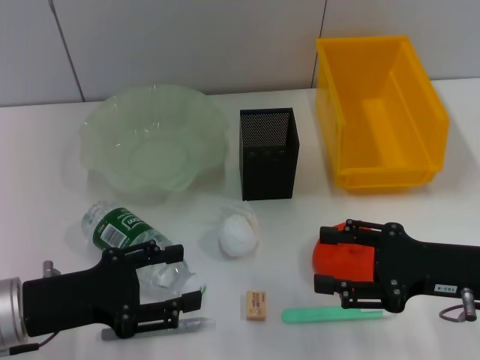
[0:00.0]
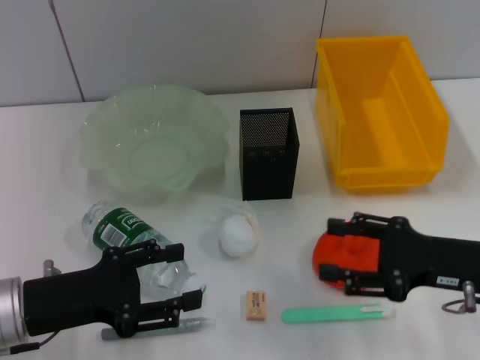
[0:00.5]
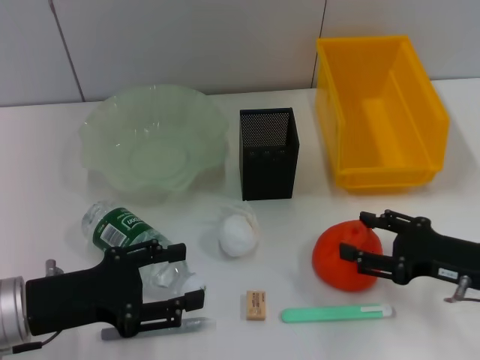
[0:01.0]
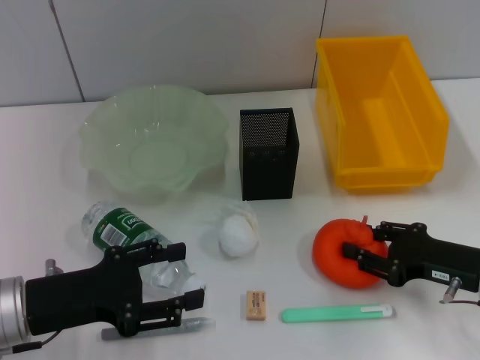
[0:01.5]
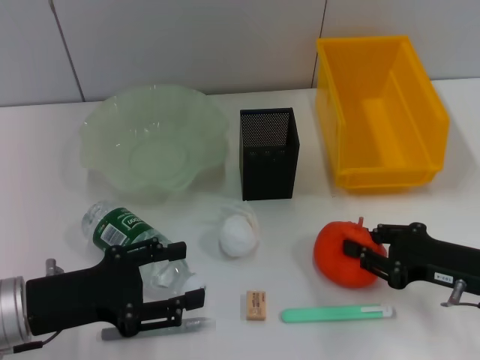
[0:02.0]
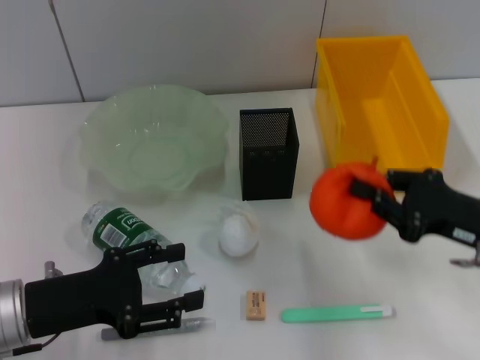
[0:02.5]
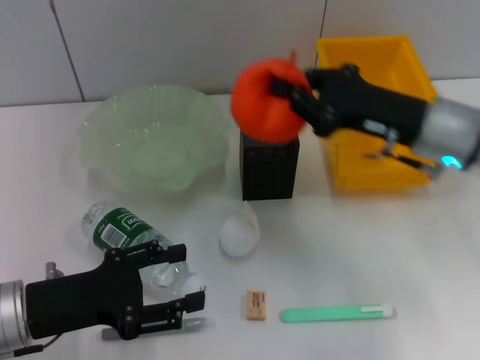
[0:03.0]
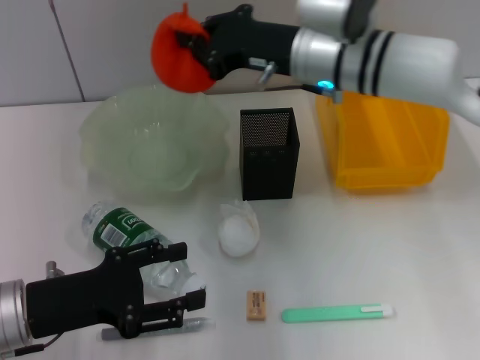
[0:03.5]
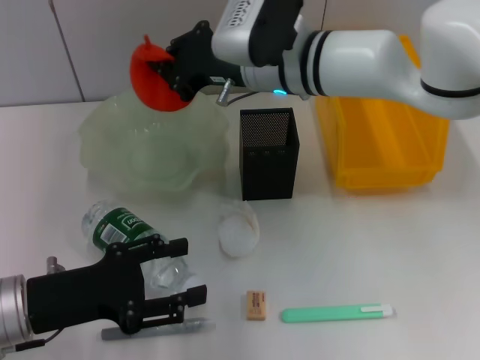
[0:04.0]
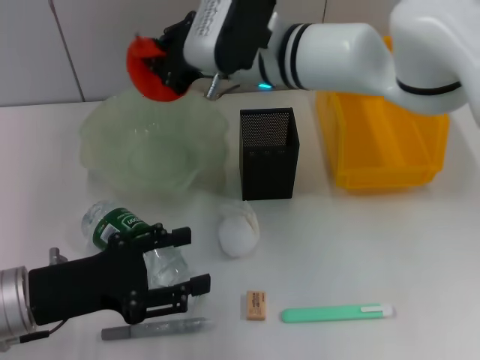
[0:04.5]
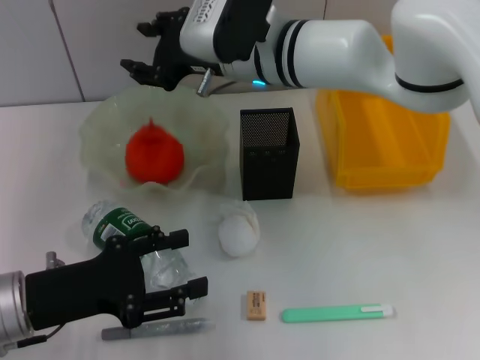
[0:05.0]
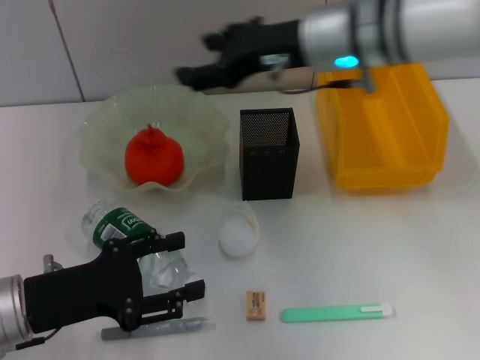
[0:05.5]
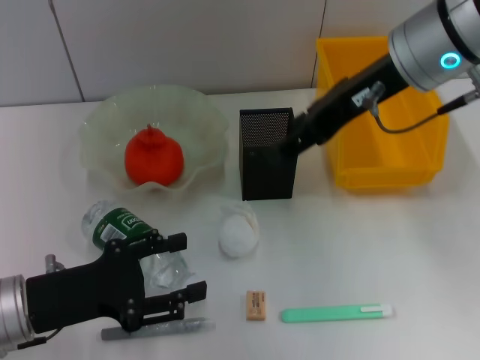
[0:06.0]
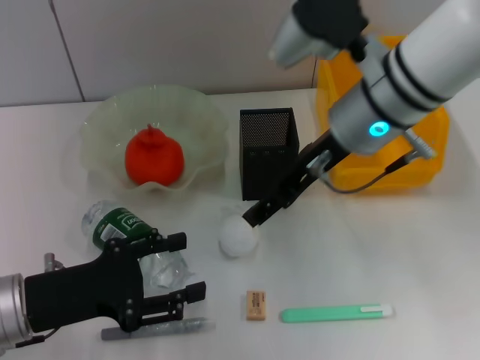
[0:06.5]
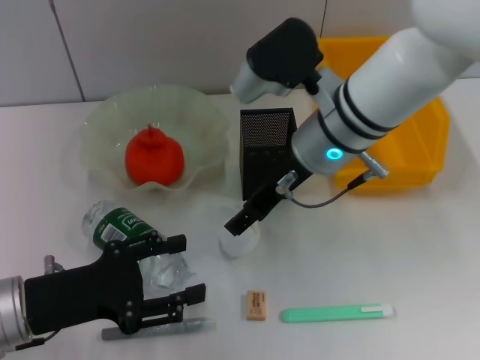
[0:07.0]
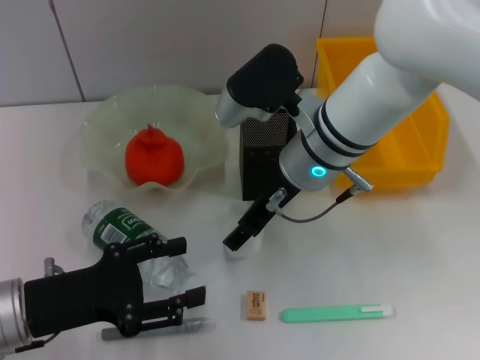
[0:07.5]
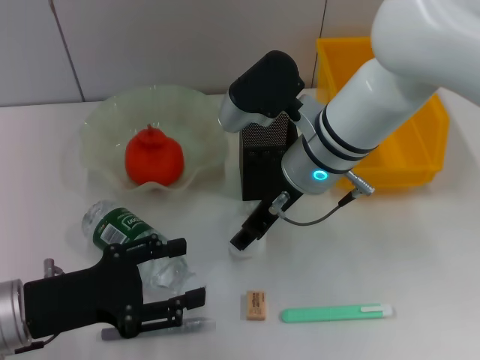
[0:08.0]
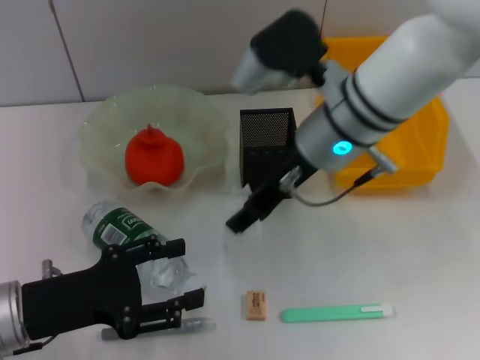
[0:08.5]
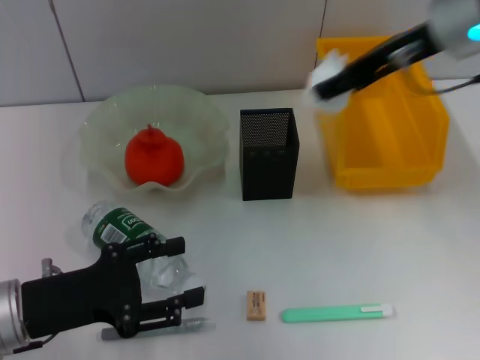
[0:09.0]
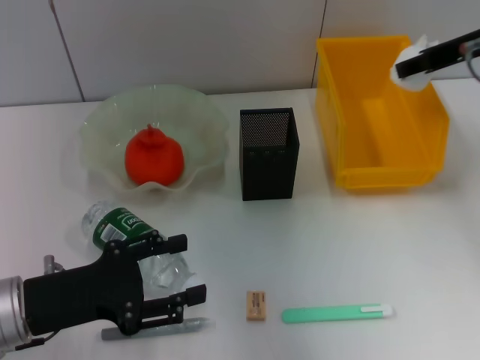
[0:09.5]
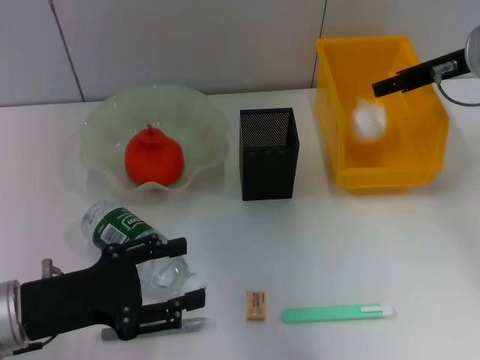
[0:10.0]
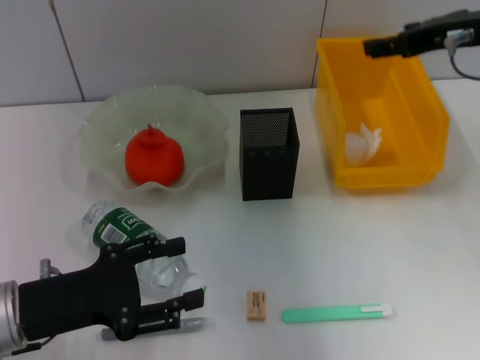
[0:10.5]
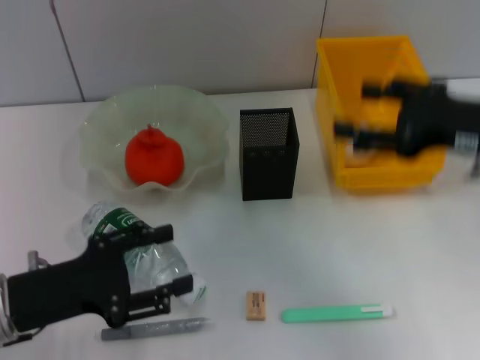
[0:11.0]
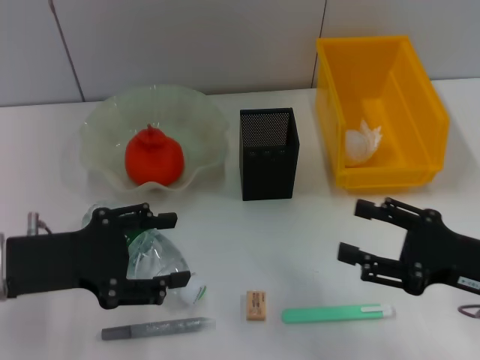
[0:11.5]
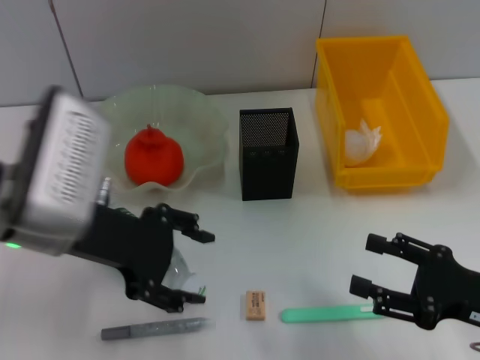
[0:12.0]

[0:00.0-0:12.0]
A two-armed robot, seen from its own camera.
Step, 0:00.0 to 0:01.5: Grab the orange with the right hand.
Step, 0:02.0 to 0:05.0: Place the orange into the fruit bowl with the right hand.
Step, 0:06.0 to 0:08.0: Grab the paper ball with the right hand.
Step, 0:08.5 to 0:10.0: Place the paper ball into the trash can with the right hand.
0:00.0 to 0:02.0: The right gripper closes.
0:02.0 to 0:04.0: The right gripper heads to the left, forward and upward, covering about 30 cm.
0:04.0 to 0:06.0: The right gripper travels to the right, upward and backward by approximately 15 cm, and opens its fingers.
0:06.0 to 0:08.0: The right gripper shifts about 15 cm downward and to the left.
0:08.0 to 0:10.0: The right gripper goes about 20 cm to the right.
0:10.0 to 0:12.0: The right gripper travels backward and downward by some 25 cm, while the left gripper goes approximately 15 cm upward, to the right and forward.

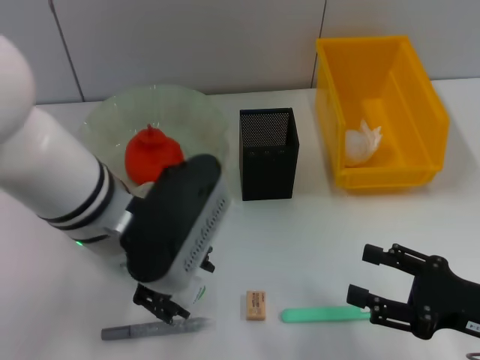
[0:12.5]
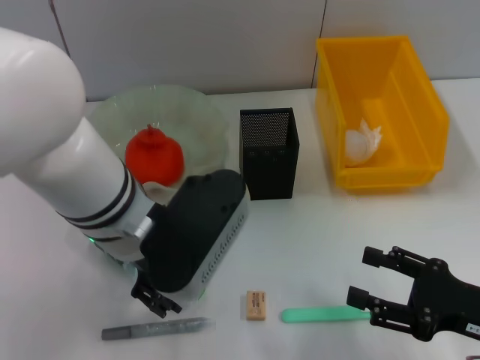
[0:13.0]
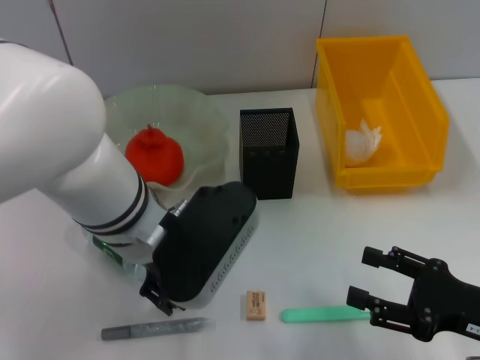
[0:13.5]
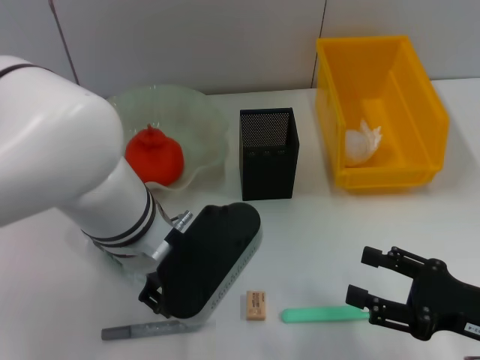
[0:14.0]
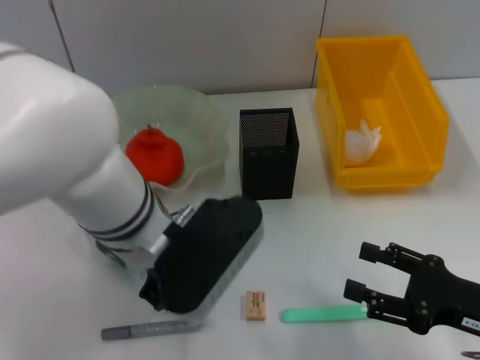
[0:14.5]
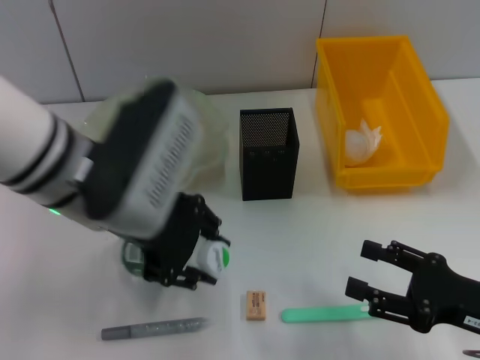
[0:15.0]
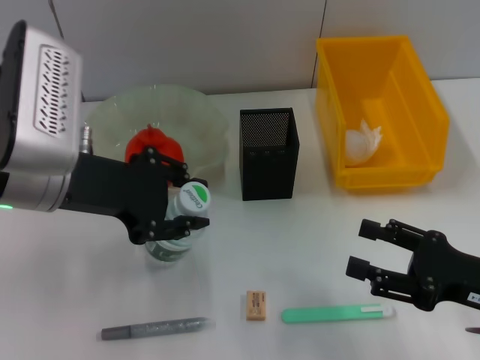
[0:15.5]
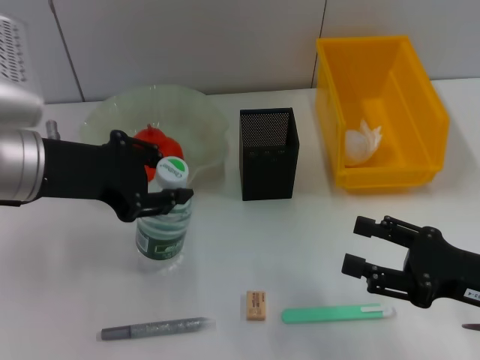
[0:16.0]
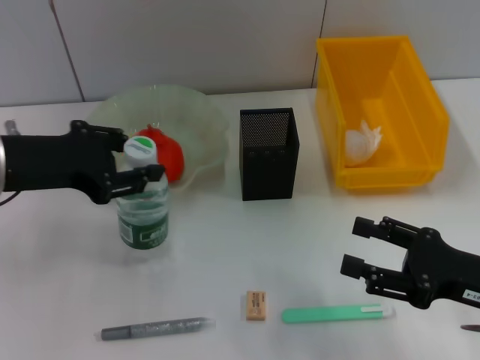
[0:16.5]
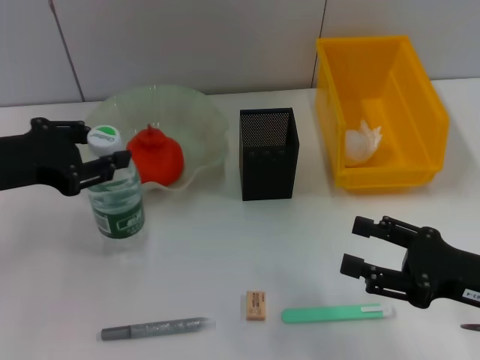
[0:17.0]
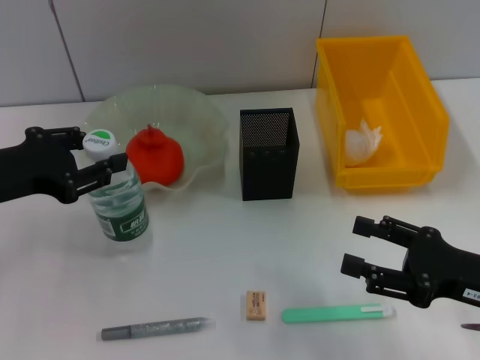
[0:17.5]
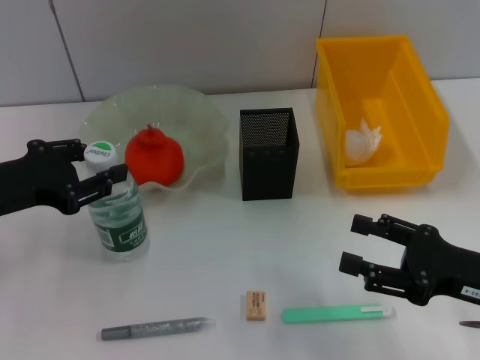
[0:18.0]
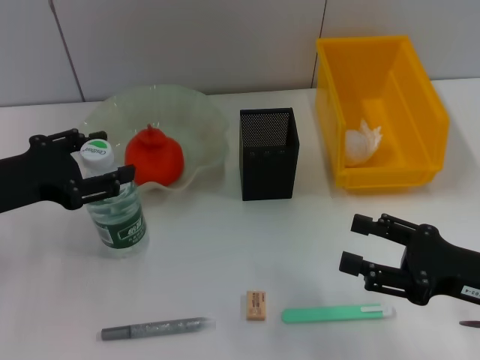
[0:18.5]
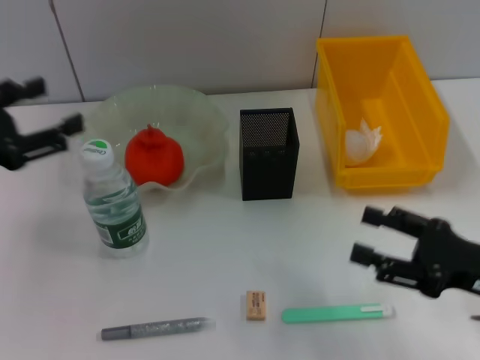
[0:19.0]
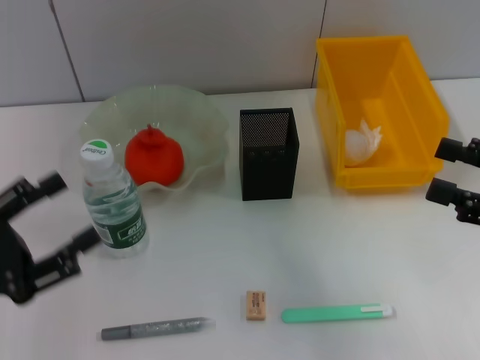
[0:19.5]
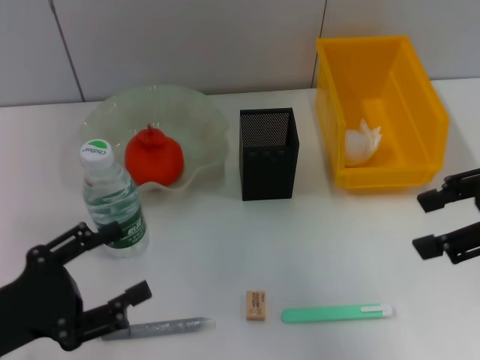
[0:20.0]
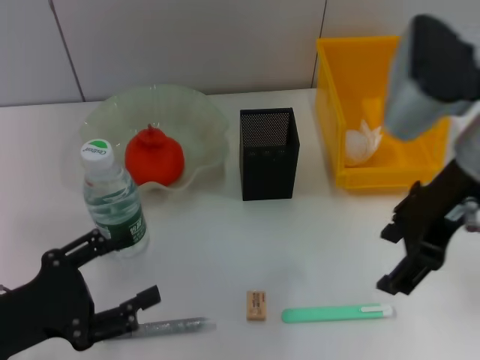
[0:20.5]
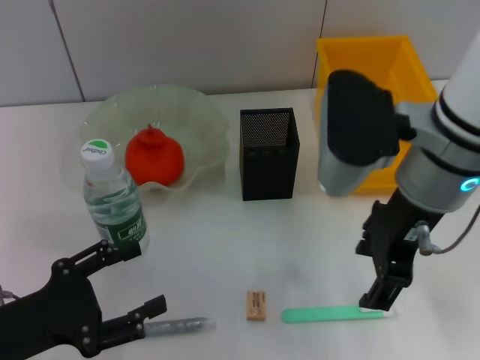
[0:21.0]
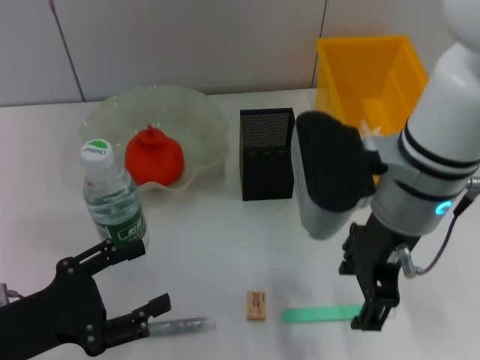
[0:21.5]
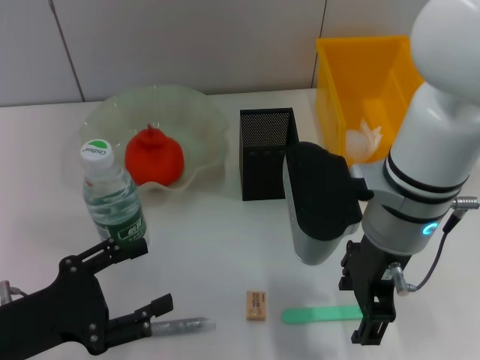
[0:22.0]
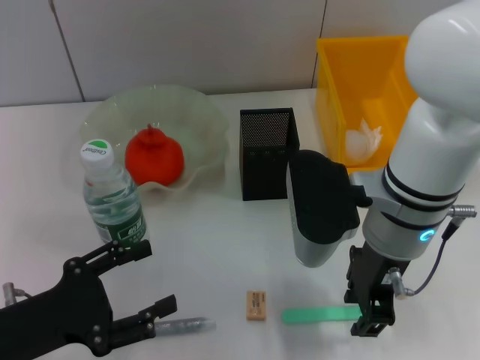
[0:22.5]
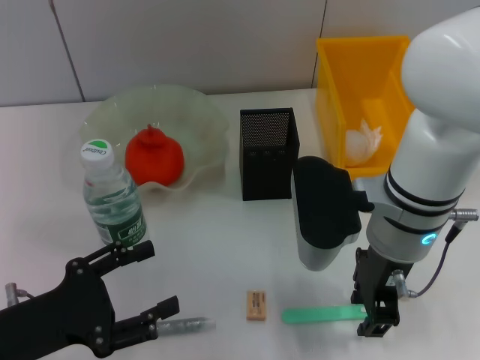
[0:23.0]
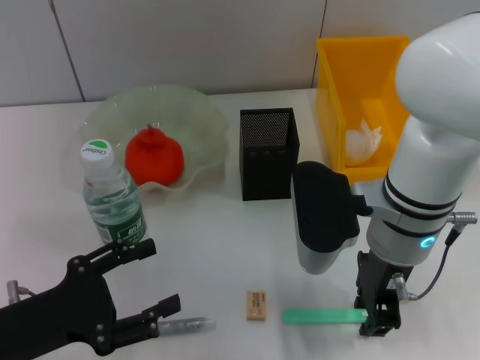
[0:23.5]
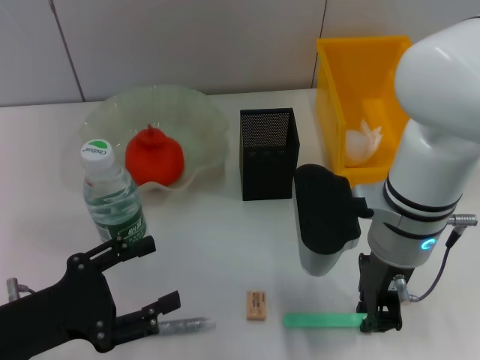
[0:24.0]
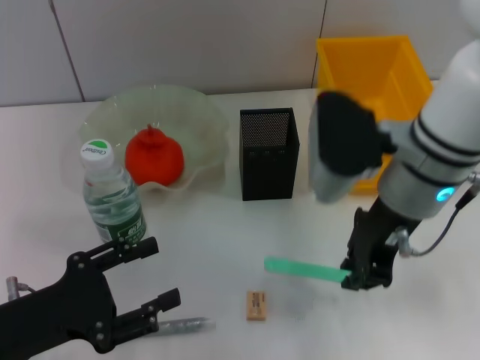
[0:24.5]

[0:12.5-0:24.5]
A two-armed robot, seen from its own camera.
Step, 0:14.5 to 0:18.5: Place the water bottle on the table with the left hand.
Step, 0:19.0 to 0:23.5: Grab the blue utility knife with the right hand.
0:12.5 to 0:14.5: The left gripper closes its fingers.
0:14.5 to 0:16.5: The left gripper moves to the left, about 15 cm.
0:16.5 to 0:18.5: The left gripper is displaced to the left by approximately 5 cm.
0:18.5 to 0:20.5: The right gripper shifts approximately 20 cm upward, to the left and forward. Meanwhile the left gripper travels backward and downward by about 10 cm, and opens up.
0:20.5 to 0:22.5: The right gripper shifts roughly 10 cm downward and to the left, and closes.
0:22.5 to 0:24.5: The right gripper closes up.

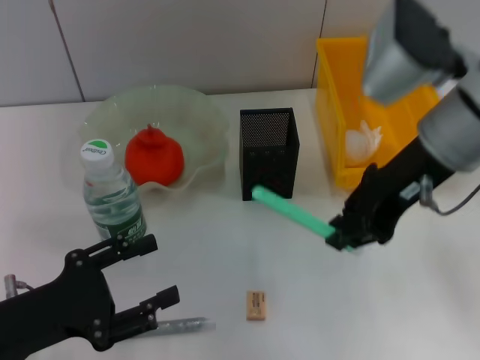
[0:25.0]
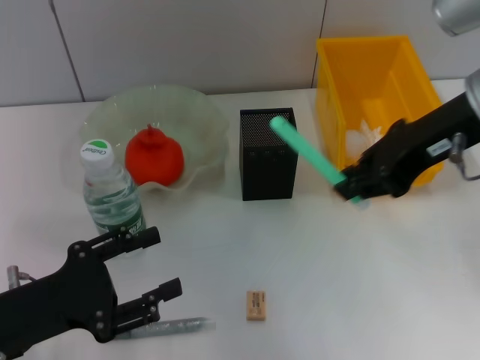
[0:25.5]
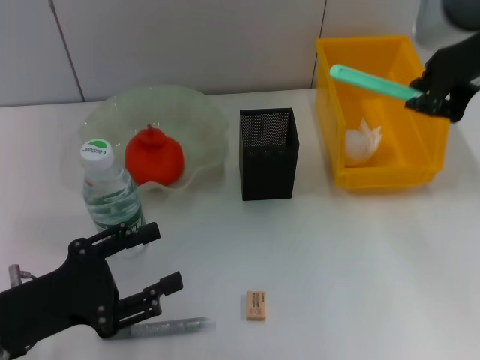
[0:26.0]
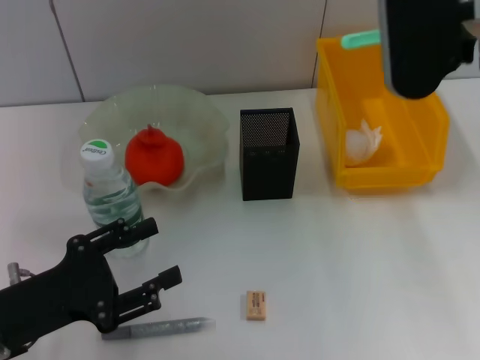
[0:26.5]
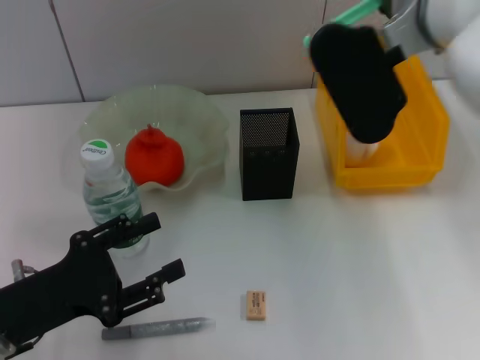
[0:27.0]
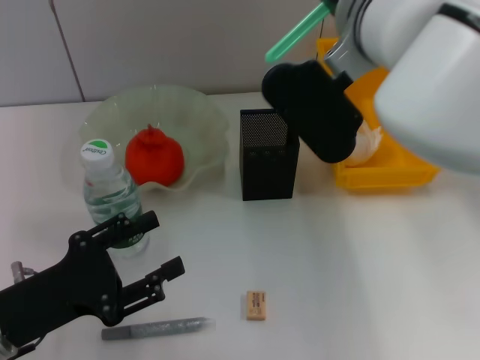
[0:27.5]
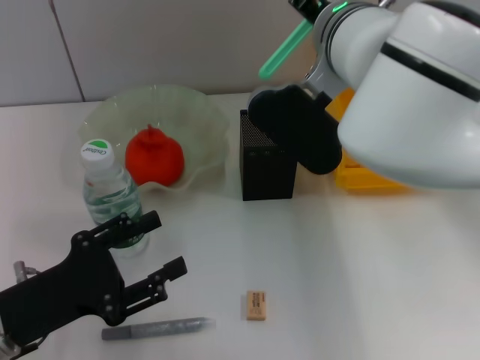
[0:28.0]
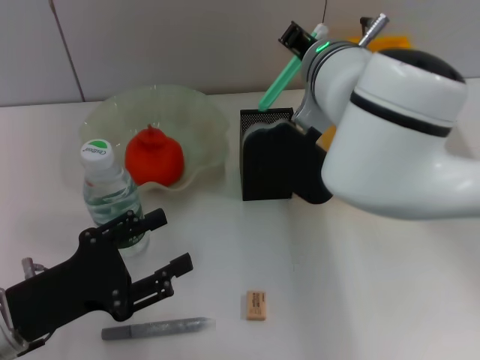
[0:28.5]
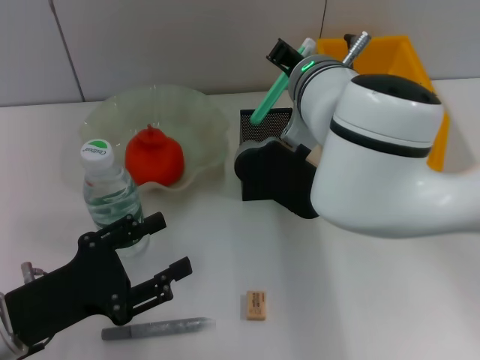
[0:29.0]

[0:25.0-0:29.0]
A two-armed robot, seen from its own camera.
0:25.0 to 0:27.0: The right gripper moves about 5 cm.
0:27.0 to 0:29.0: The right gripper heads downward and to the left, covering roughly 10 cm.
